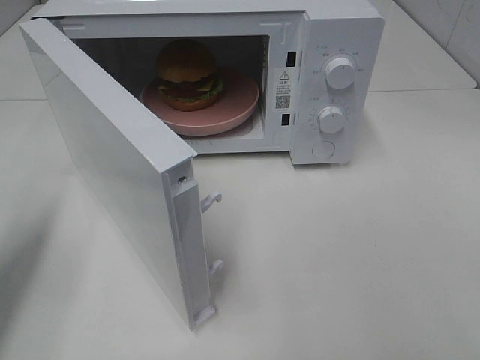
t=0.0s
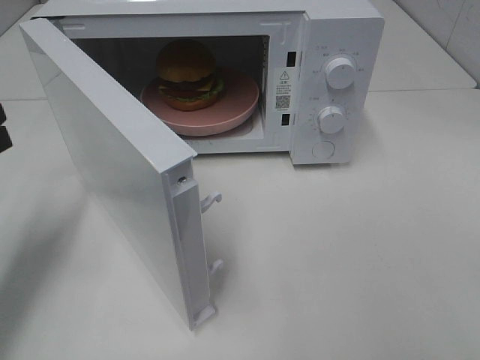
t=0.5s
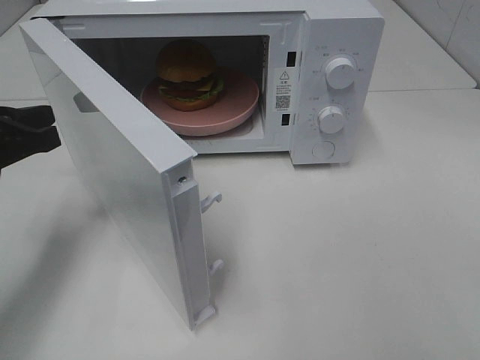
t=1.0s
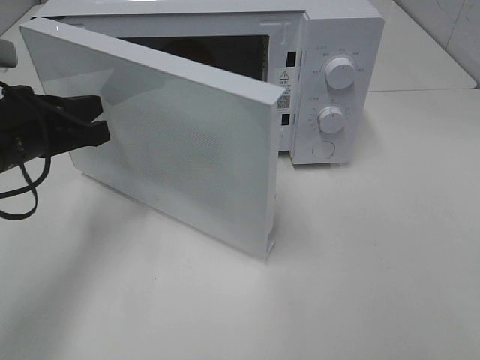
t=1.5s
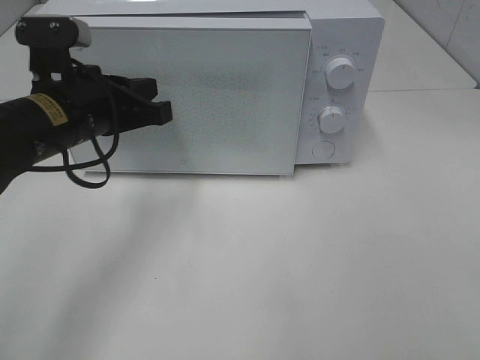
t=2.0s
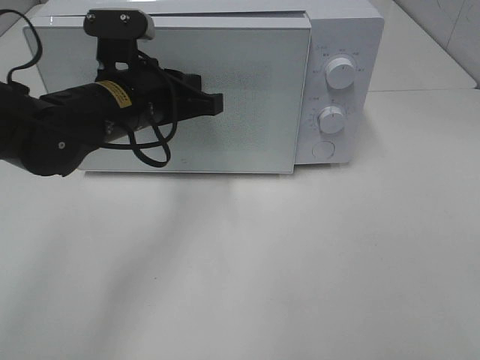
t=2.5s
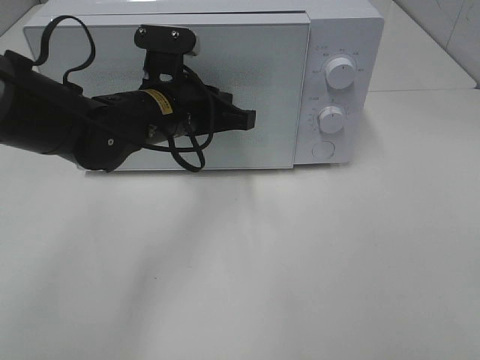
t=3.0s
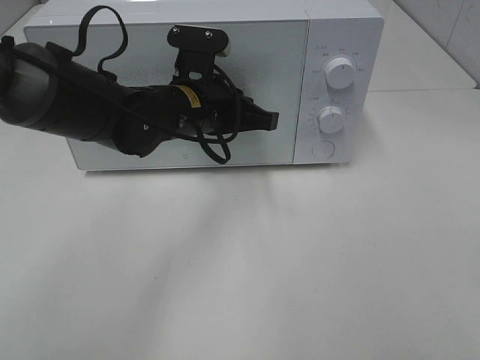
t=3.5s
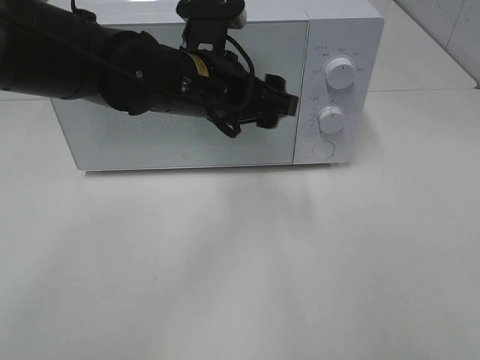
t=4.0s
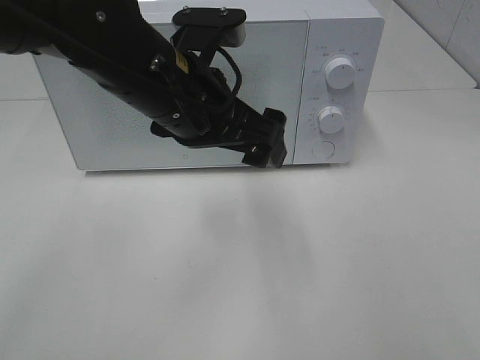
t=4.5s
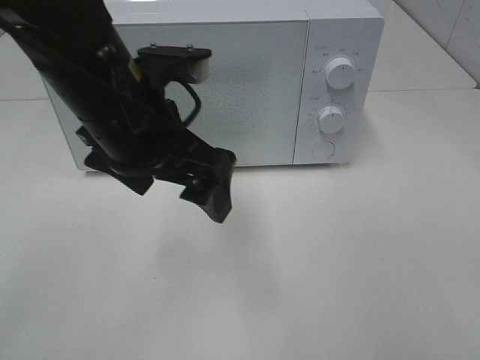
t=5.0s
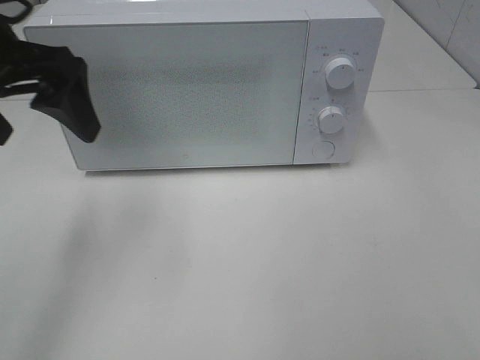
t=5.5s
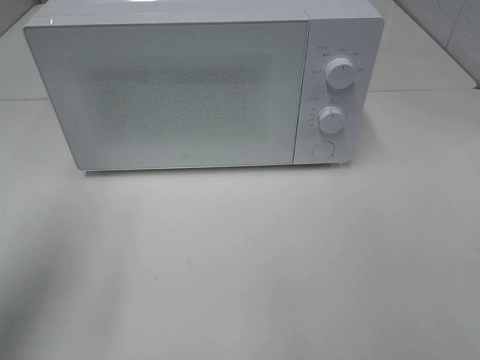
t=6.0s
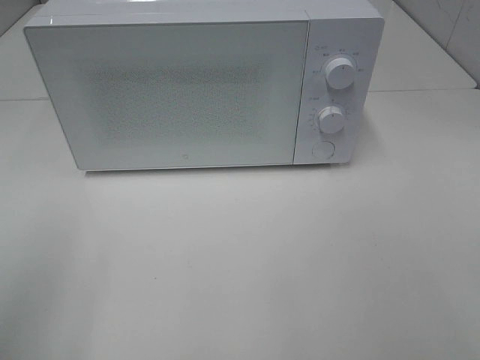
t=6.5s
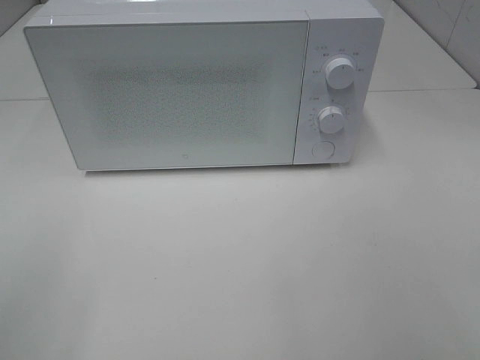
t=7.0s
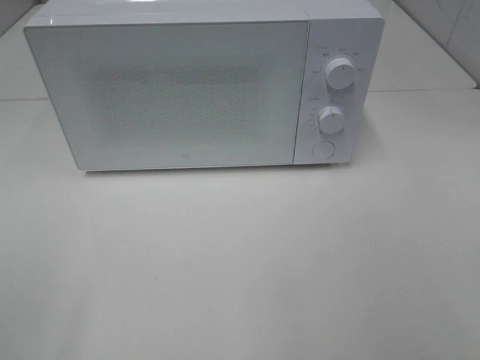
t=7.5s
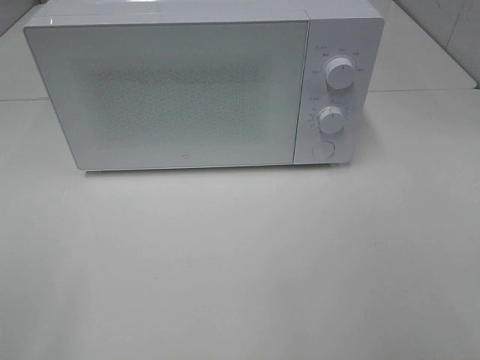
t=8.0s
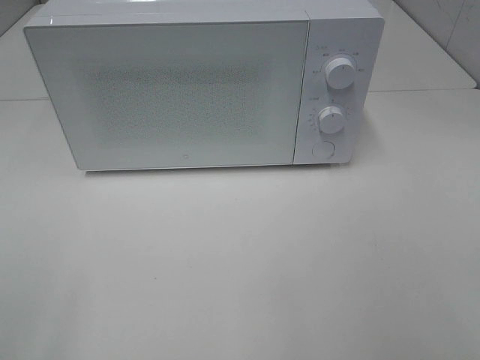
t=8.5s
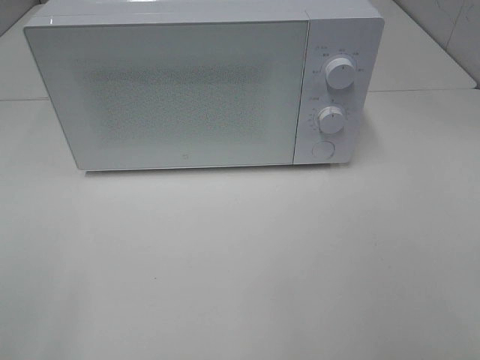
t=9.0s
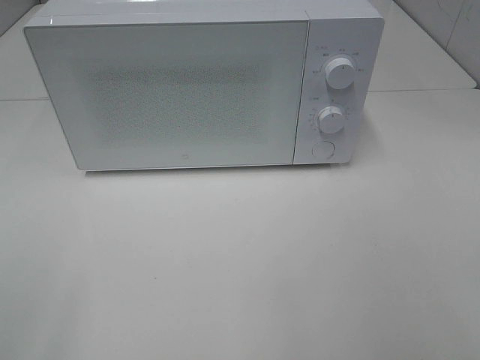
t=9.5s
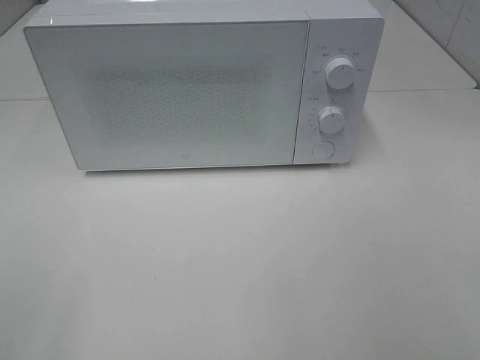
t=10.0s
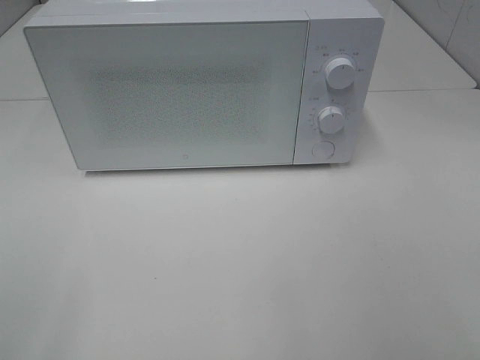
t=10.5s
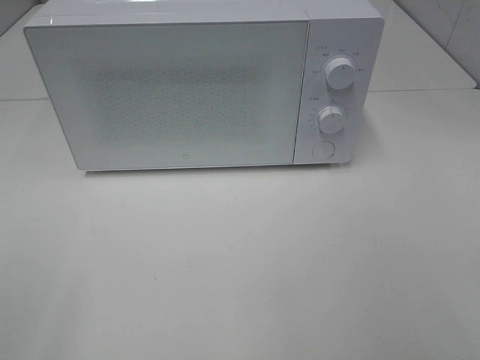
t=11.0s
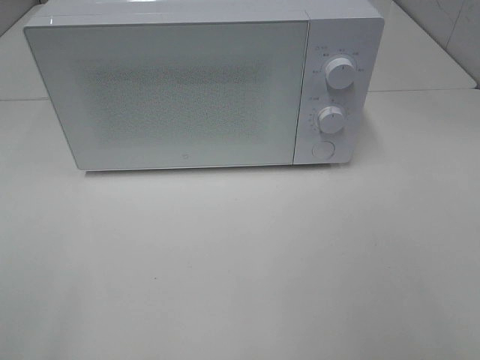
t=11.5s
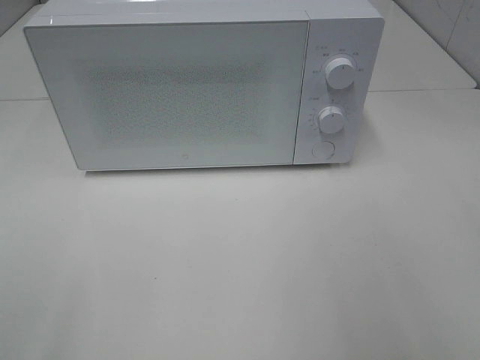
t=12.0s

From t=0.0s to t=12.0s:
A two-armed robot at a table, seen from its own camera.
Task of the whole recording: Heat the burger.
Step, from t=0.0s to t=3.5s: Left hand: close the microwave door.
From t=0.0s to t=2.0s: The left gripper travels to the right and forward by some 20 cm.
From t=2.0s to t=4.0s: The left gripper is displaced to the right by roughly 15 cm, and opens.
From t=4.0s to t=6.0s: The left gripper moves to the left and backward, about 30 cm.
From t=6.0s to t=8.0s: The left gripper shifts roughly 20 cm backward.
From t=8.0s to t=10.0s: Both grippers stay put.

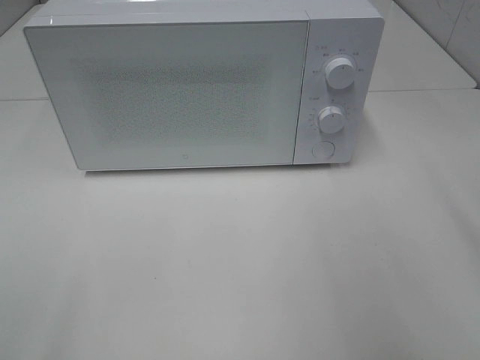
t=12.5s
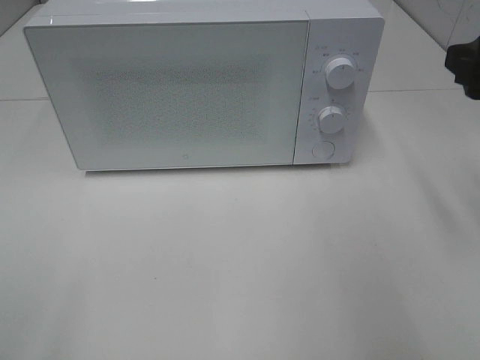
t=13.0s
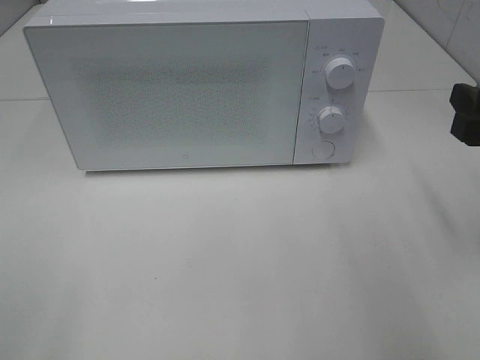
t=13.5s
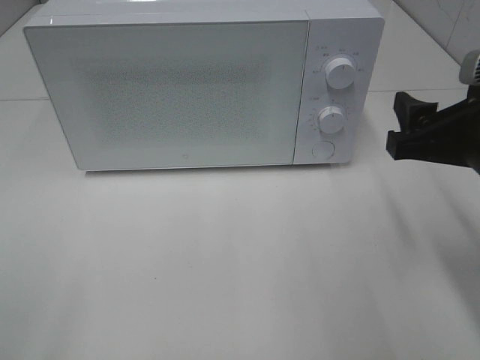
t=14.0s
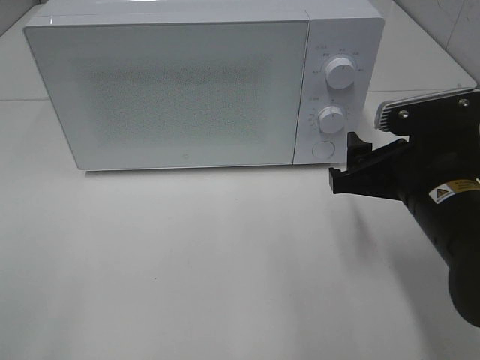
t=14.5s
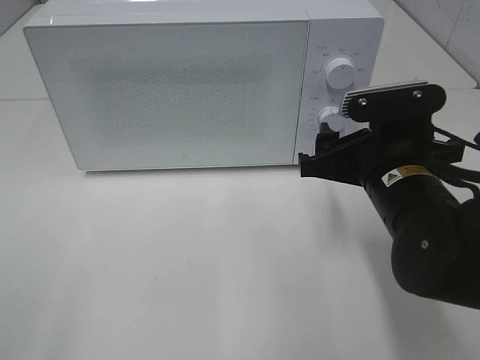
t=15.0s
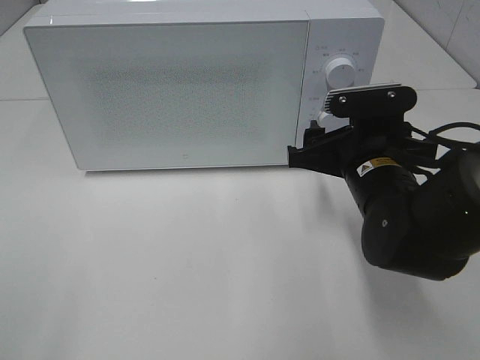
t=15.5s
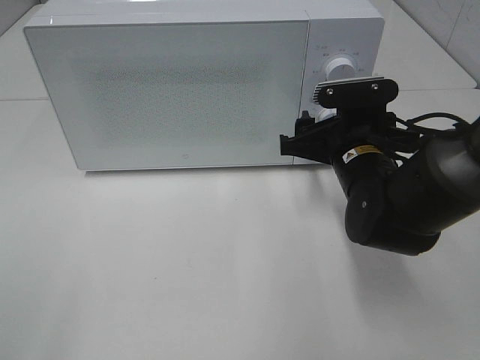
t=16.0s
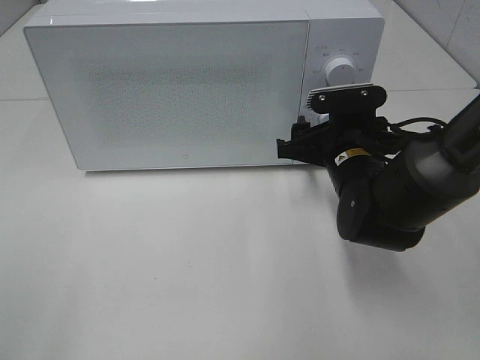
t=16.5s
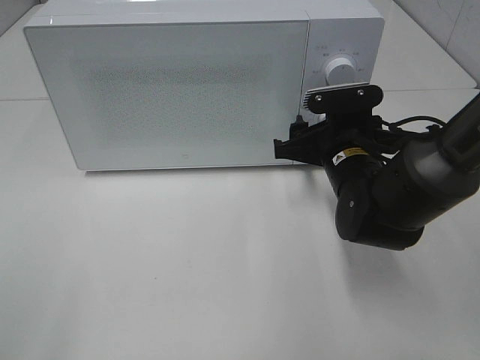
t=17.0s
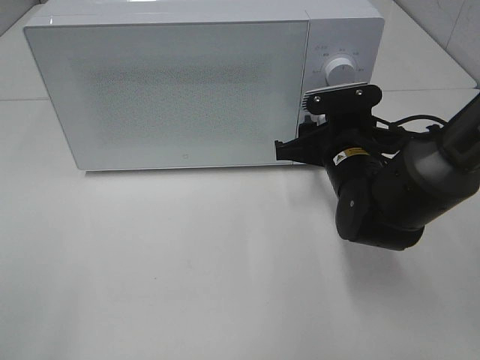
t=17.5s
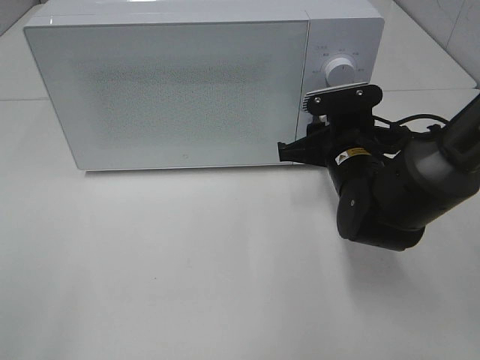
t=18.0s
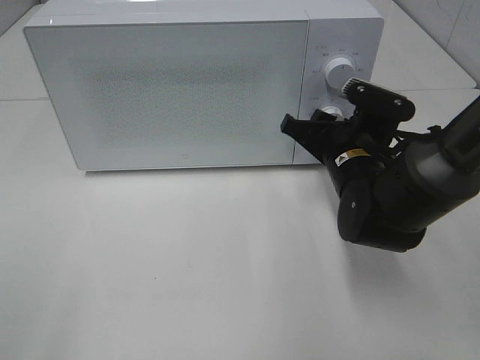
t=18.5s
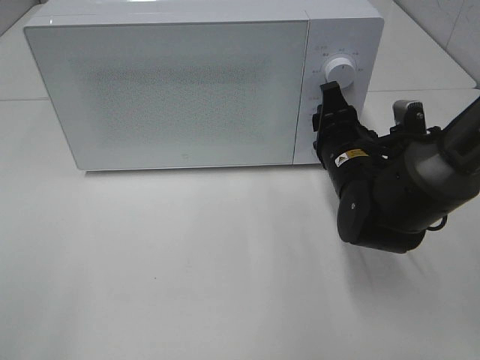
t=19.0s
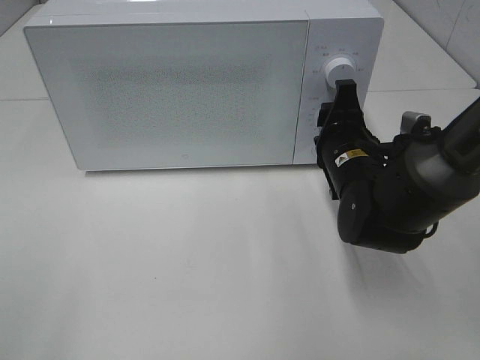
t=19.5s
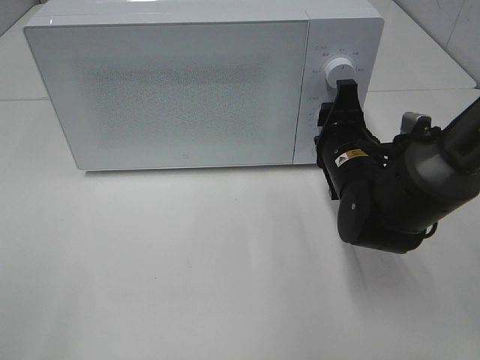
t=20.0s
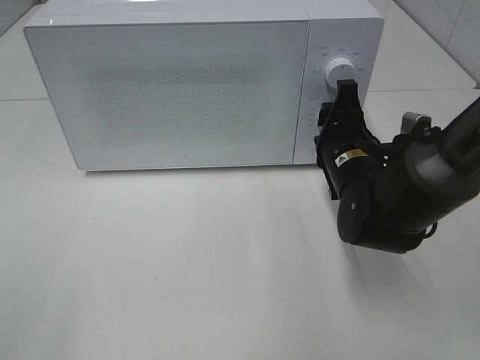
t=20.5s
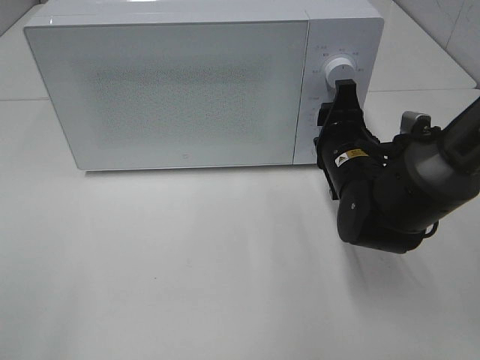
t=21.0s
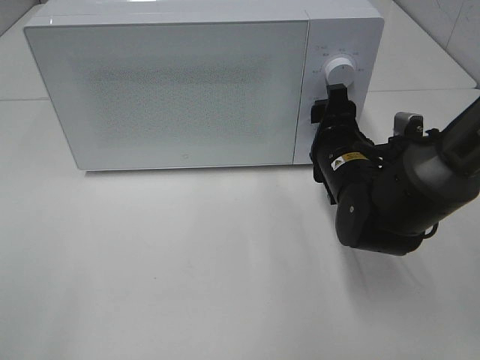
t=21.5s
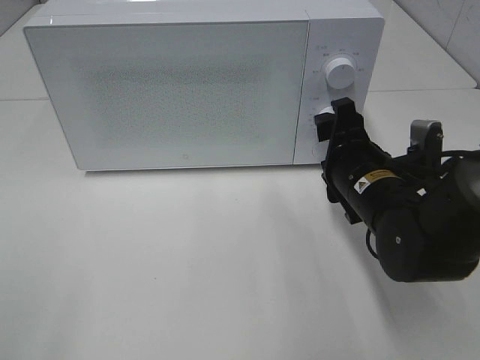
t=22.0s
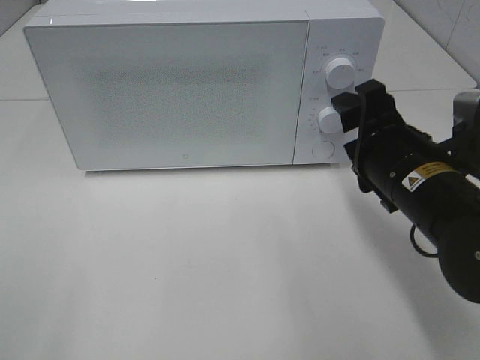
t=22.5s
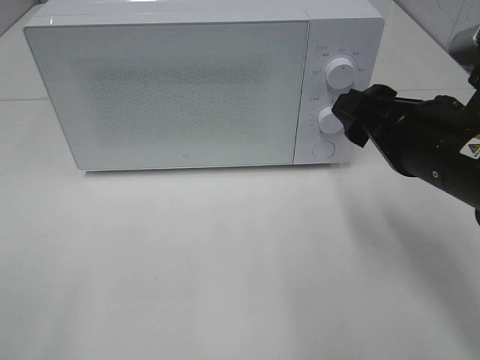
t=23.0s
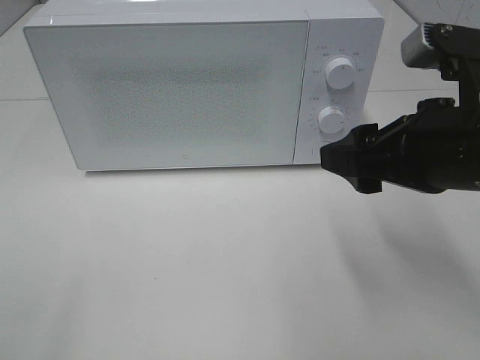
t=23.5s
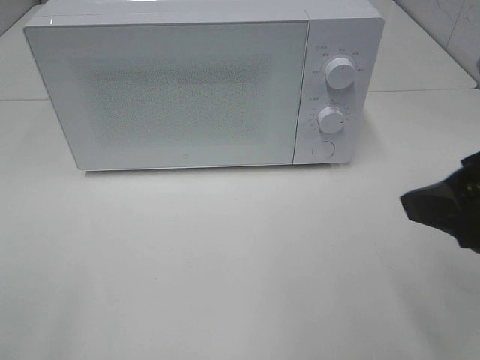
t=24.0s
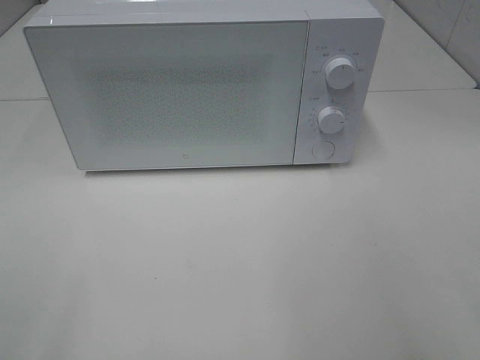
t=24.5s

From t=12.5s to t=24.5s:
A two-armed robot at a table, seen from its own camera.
Task of the whole recording: Heat the burger.
Step, from t=12.5s to t=21.0s: Right hand: twist timer button.
From t=12.5s to t=14.5s: The right gripper heads downward and to the left, covering roughly 15 cm.
From t=14.5s to t=16.5s: The right gripper shifts approximately 10 cm forward and downward.
From t=16.5s to t=18.5s: The right gripper closes its fingers.
From t=20.5s to t=22.5s: The right gripper shifts about 10 cm backward and upward.
From t=22.5s to t=24.5s: The right gripper heads backward, upward and to the right, covering some 25 cm.

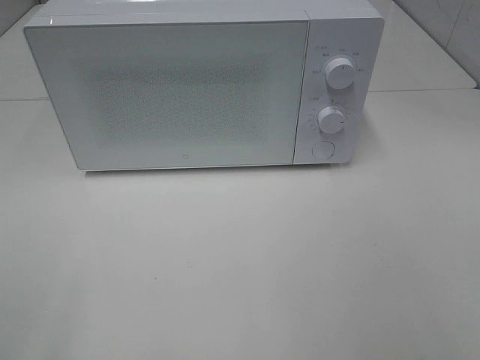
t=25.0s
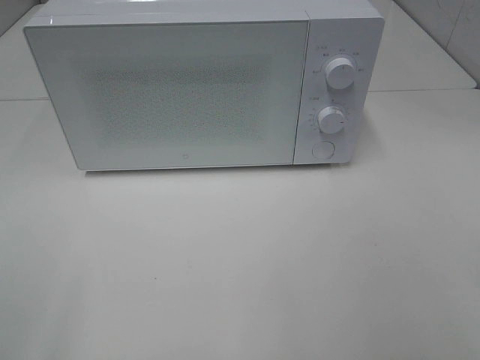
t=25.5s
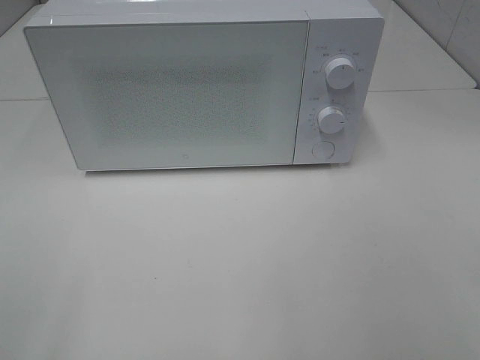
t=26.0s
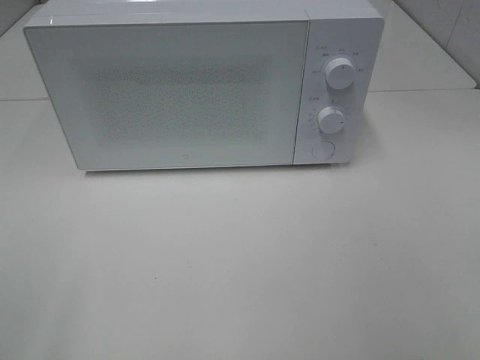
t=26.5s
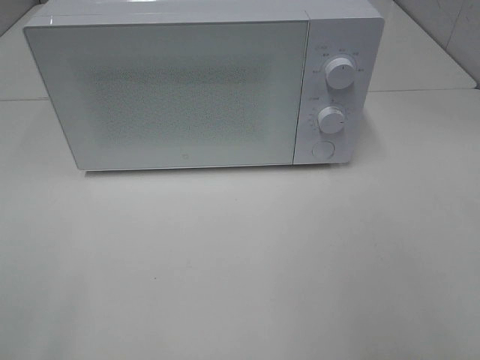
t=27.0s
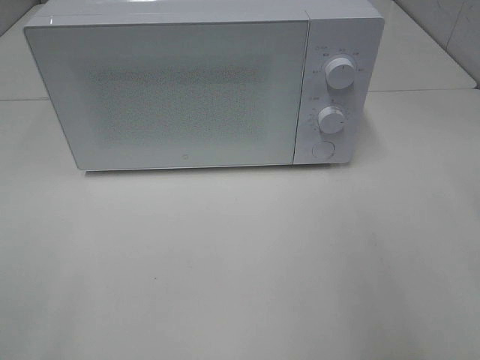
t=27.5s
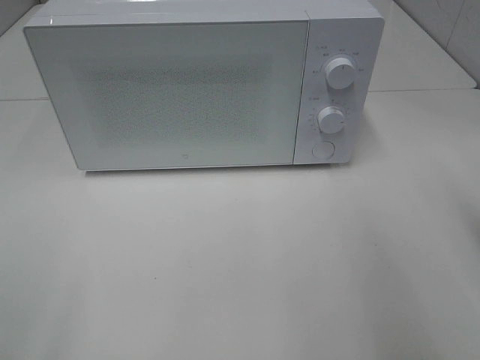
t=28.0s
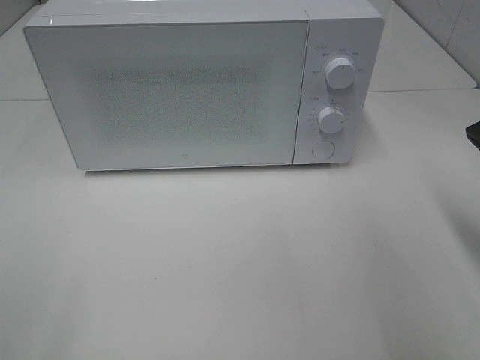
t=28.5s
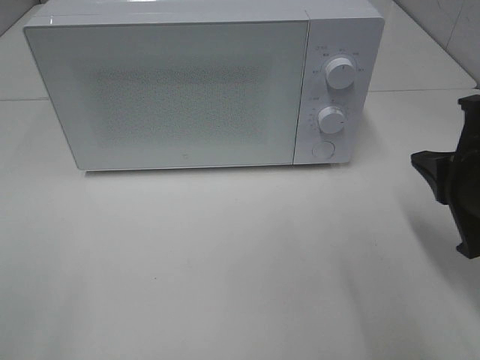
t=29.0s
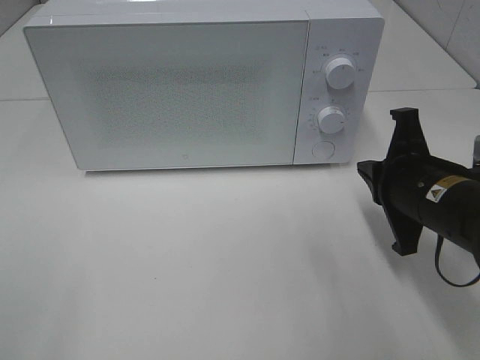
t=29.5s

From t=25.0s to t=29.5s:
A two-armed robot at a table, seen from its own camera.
Task of the whole recording: Heat the burger.
From t=27.0s to t=29.5s: The right gripper is displaced downward, forward and to the left by approximately 25 cm, and closes up.
